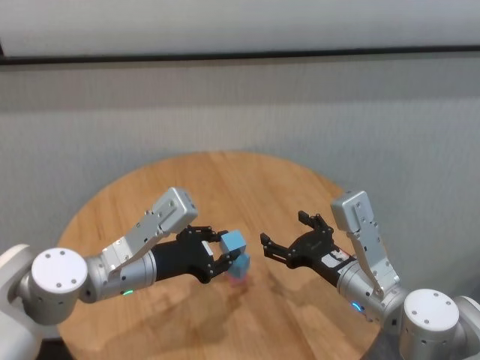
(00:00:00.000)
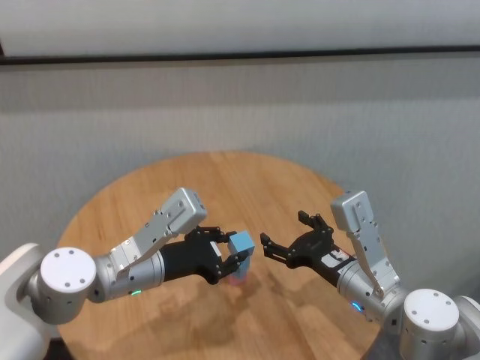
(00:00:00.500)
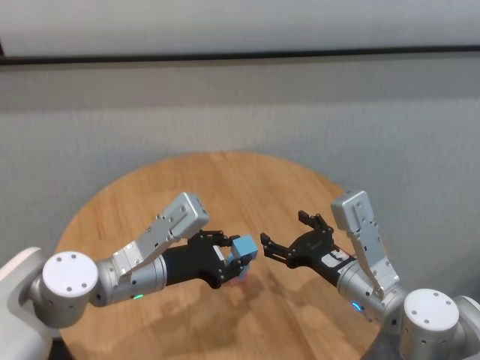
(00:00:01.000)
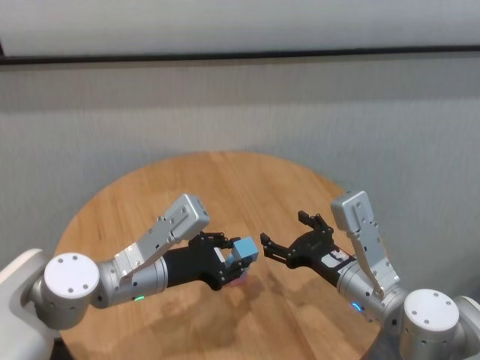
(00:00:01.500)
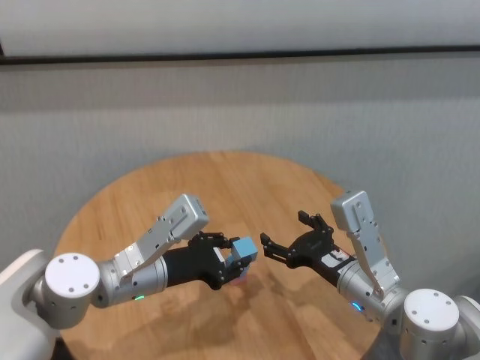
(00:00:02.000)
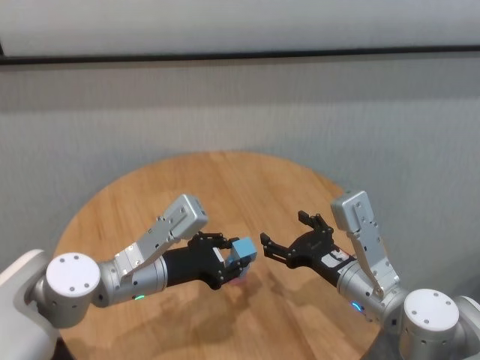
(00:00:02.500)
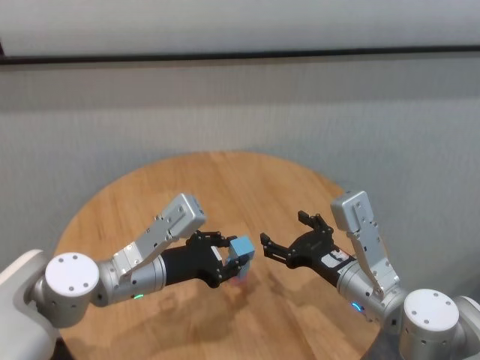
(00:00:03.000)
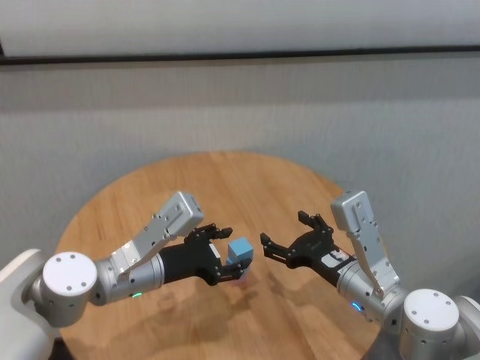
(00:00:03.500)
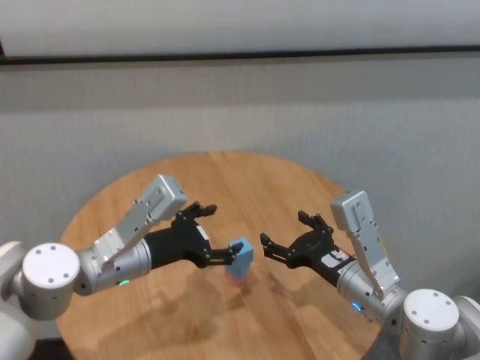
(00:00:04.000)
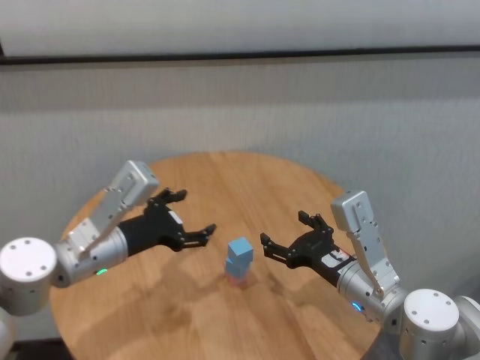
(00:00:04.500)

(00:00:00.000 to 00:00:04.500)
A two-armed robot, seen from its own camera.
Task of the whole recording: stack building blocks on the table.
Step, 00:00:00.000 - 00:00:03.500: Place the blue building block on the blue building blocks with left gripper.

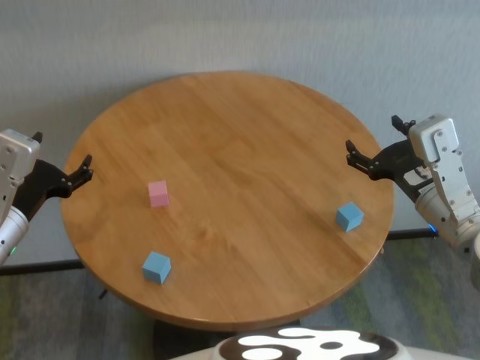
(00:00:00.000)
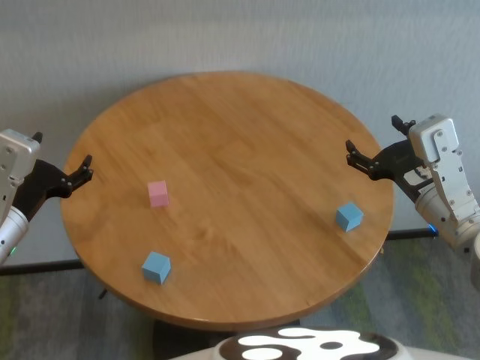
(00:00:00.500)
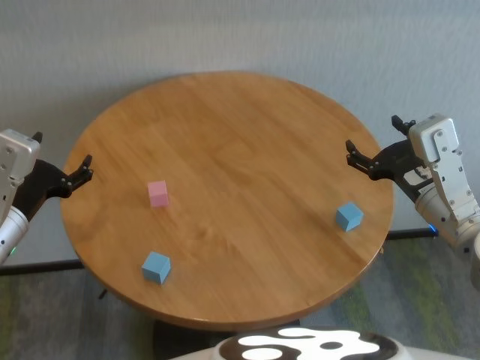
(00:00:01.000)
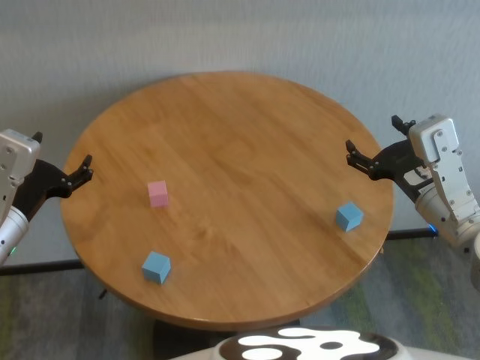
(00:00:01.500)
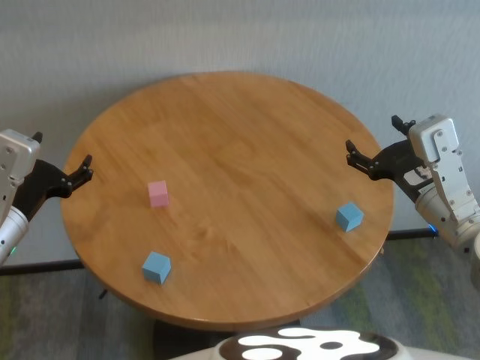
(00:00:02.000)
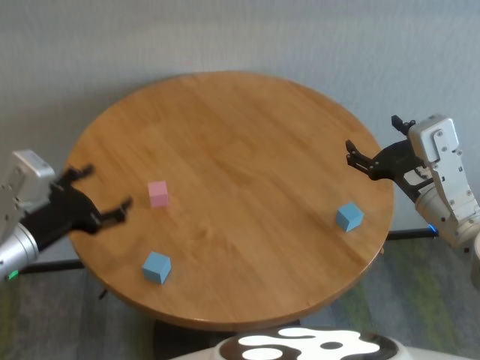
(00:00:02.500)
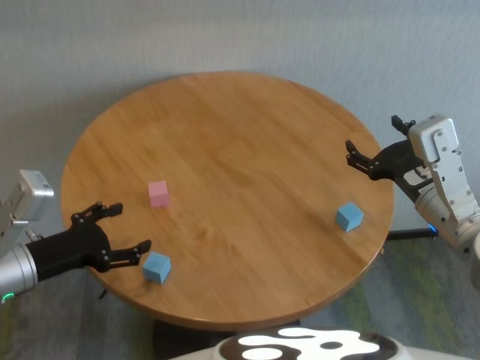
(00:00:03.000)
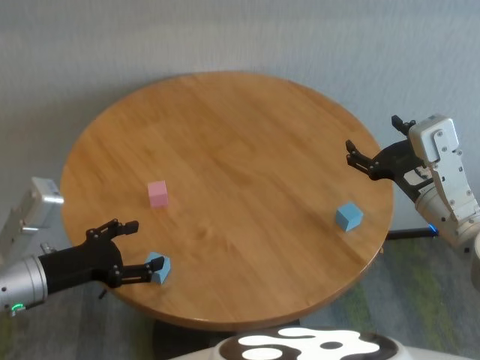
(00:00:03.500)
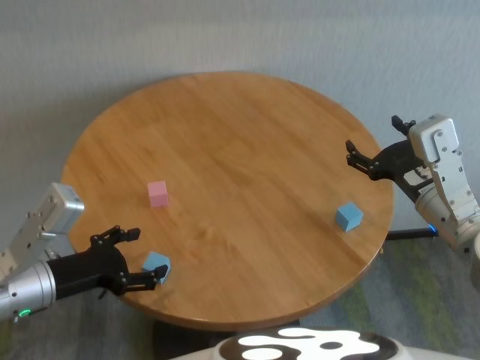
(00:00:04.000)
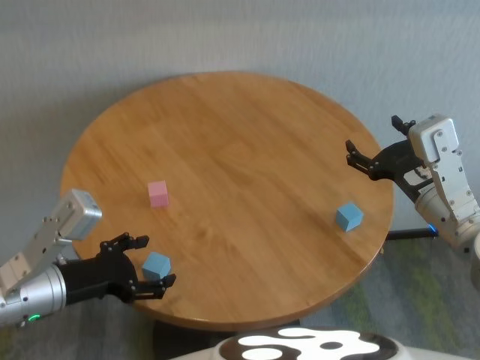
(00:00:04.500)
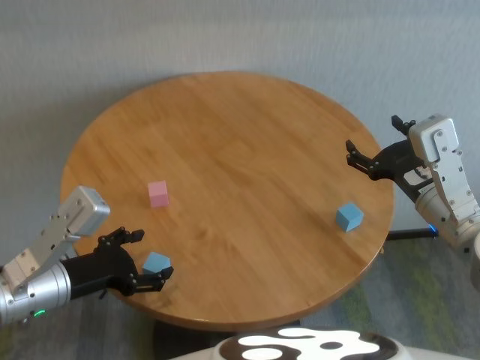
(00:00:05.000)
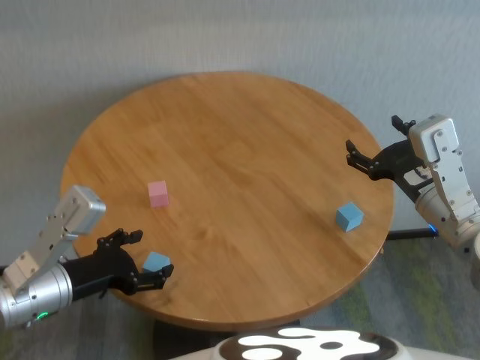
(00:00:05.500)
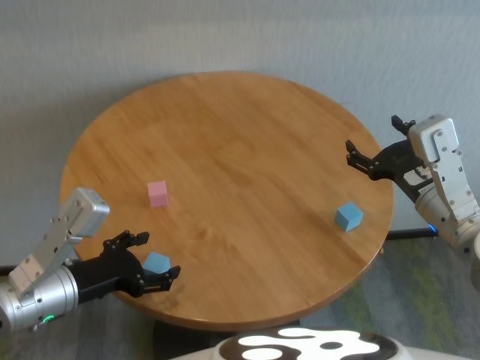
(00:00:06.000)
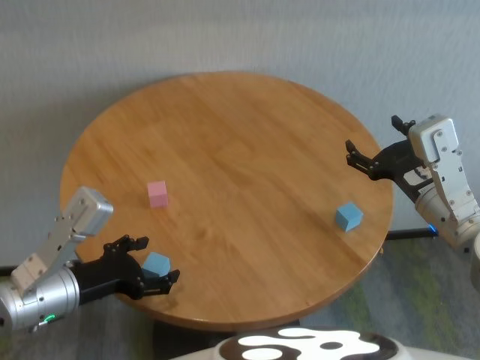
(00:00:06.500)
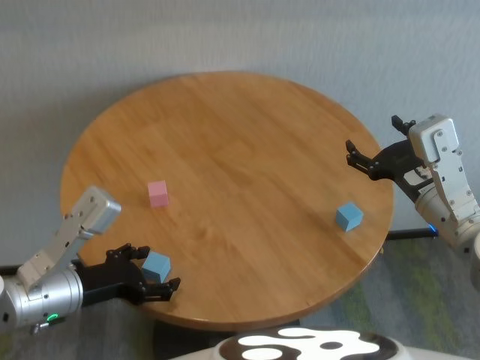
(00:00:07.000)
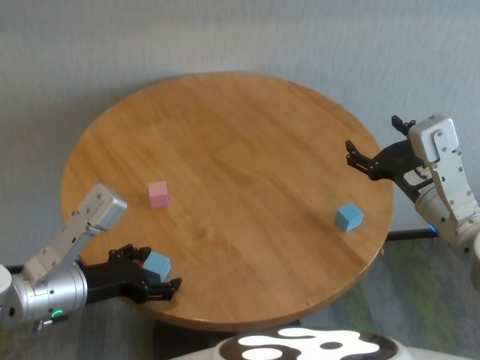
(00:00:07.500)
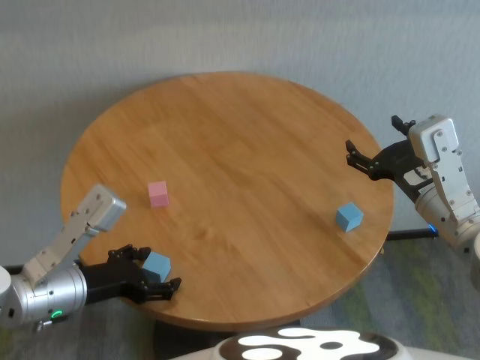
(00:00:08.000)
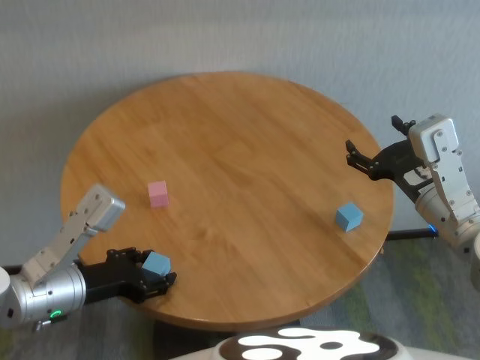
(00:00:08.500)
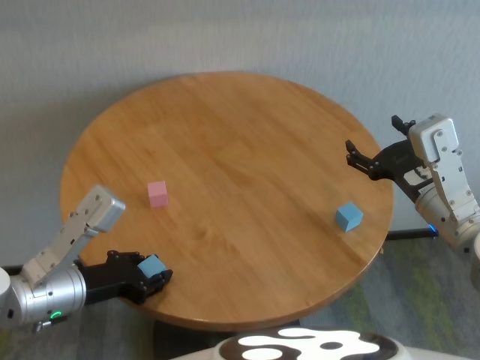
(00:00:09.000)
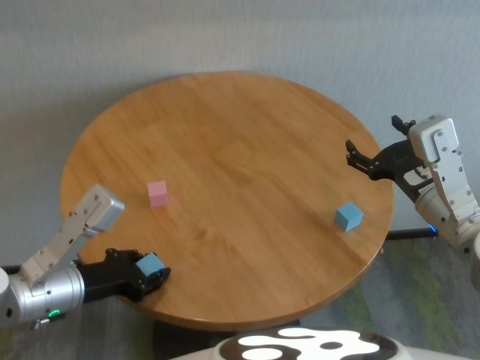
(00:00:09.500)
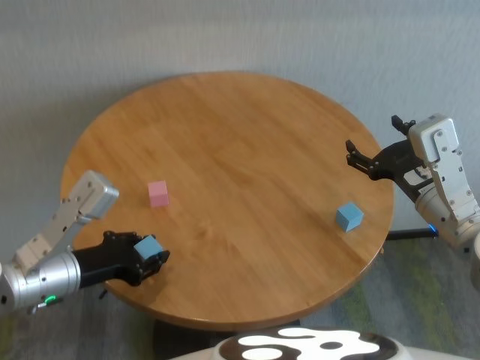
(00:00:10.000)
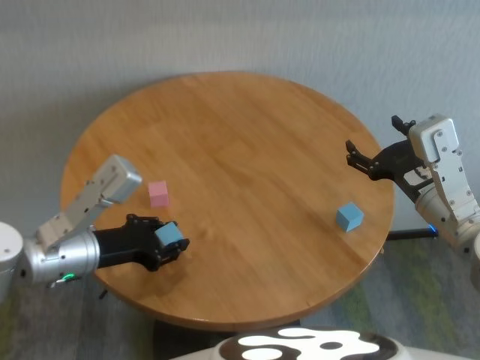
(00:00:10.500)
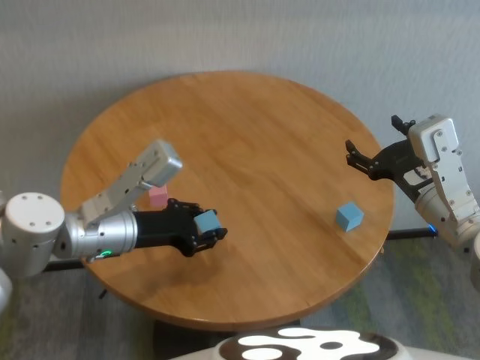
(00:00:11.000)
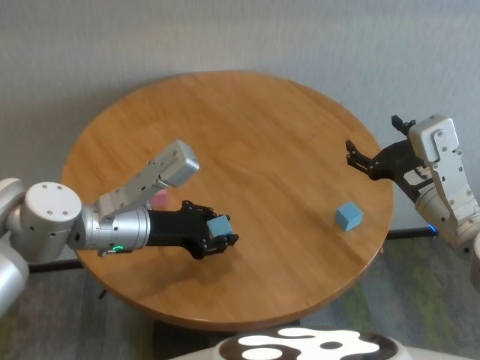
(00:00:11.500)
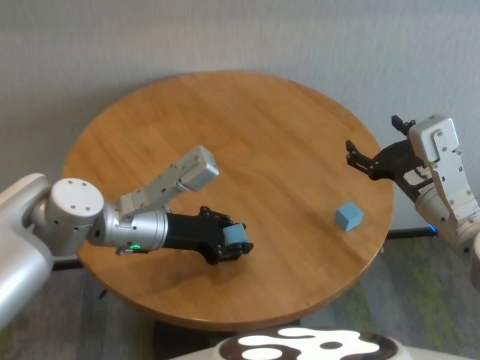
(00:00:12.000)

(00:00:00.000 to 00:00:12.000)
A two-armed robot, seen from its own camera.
Task of the whole recording: stack building blocks on the table.
Step, 00:00:00.000 - 00:00:08.500: Grasp the blue building block with left gripper.

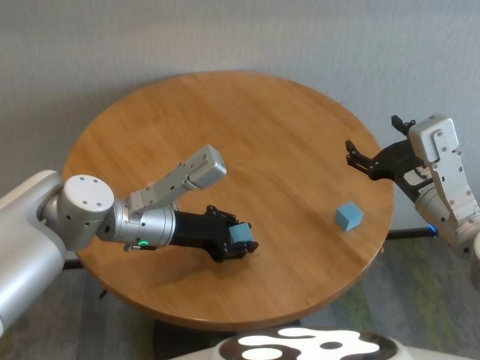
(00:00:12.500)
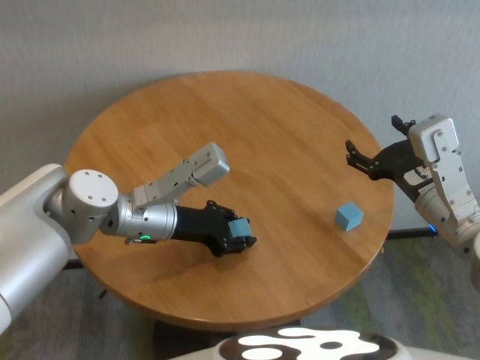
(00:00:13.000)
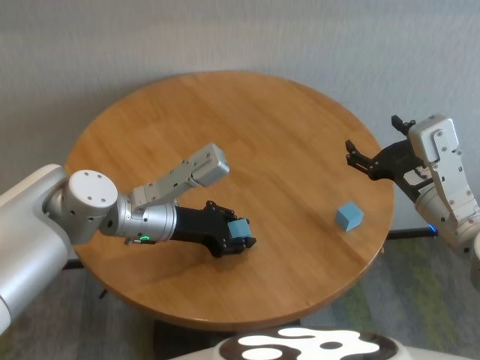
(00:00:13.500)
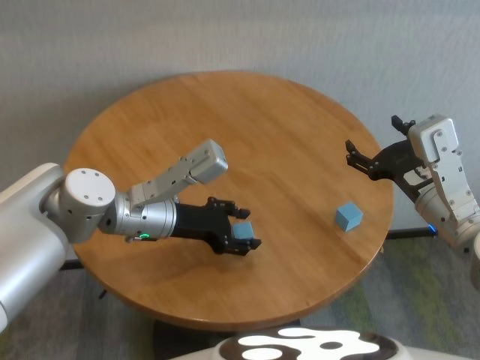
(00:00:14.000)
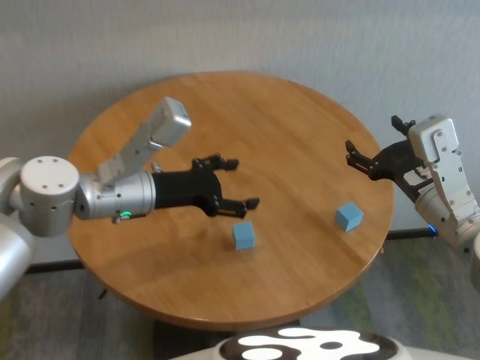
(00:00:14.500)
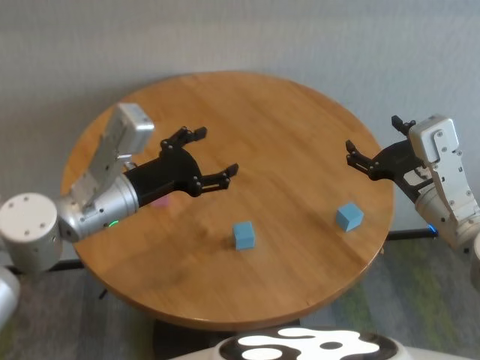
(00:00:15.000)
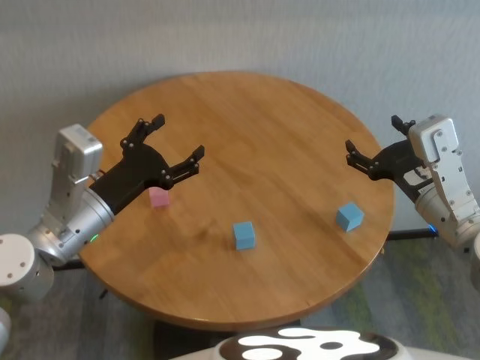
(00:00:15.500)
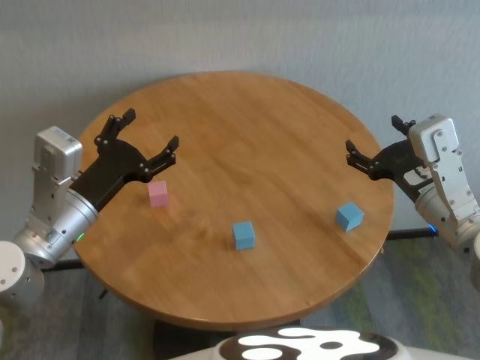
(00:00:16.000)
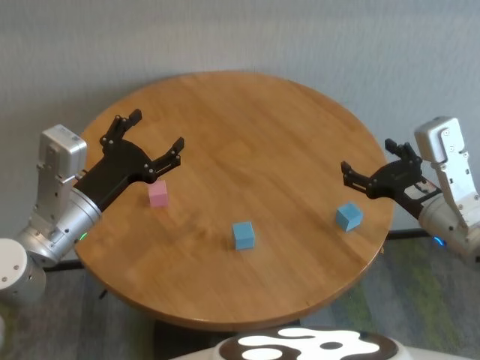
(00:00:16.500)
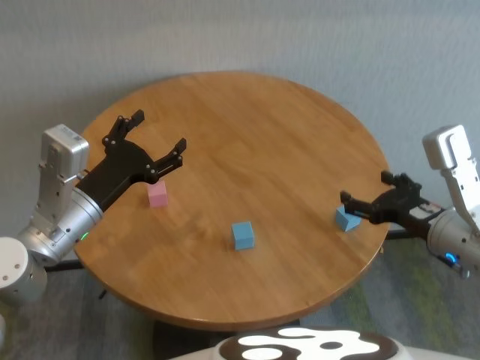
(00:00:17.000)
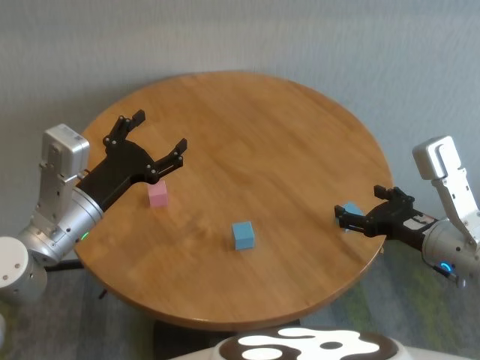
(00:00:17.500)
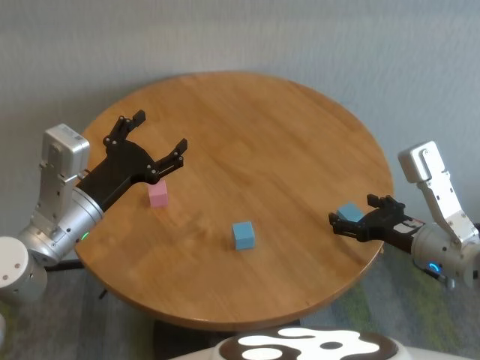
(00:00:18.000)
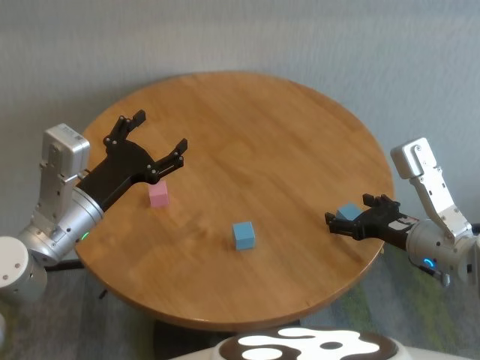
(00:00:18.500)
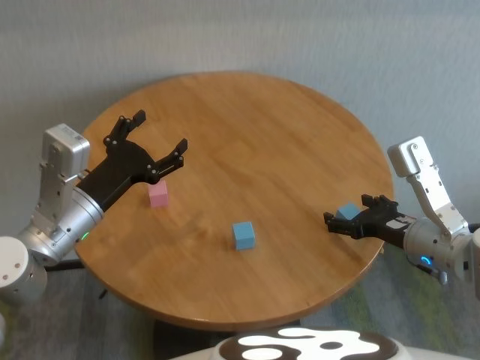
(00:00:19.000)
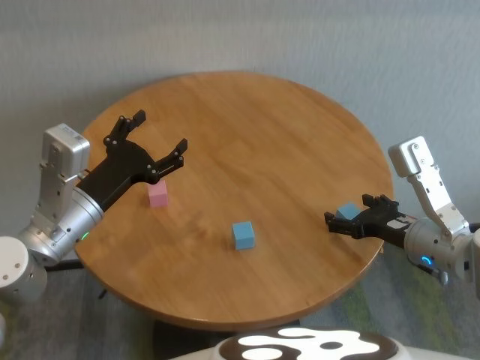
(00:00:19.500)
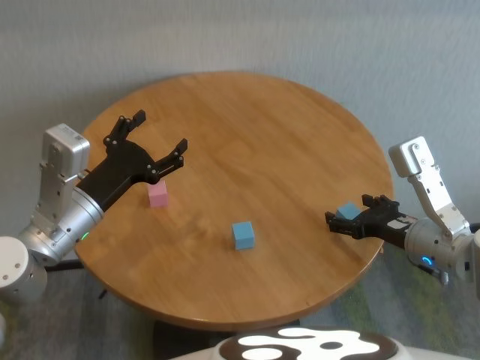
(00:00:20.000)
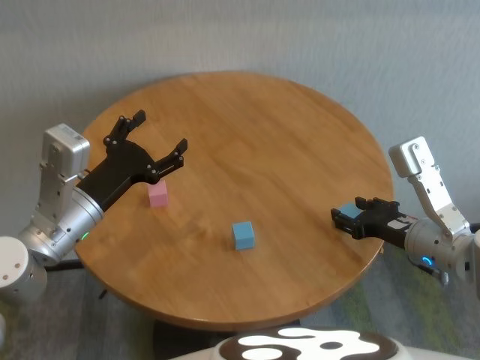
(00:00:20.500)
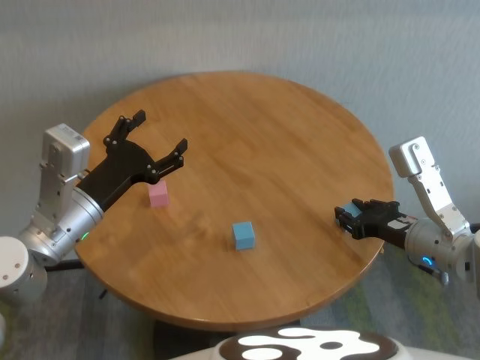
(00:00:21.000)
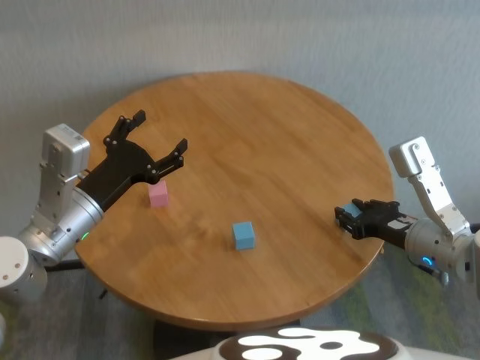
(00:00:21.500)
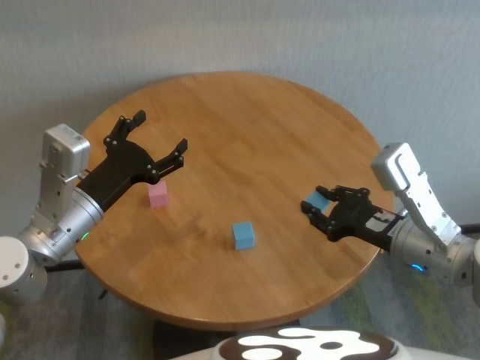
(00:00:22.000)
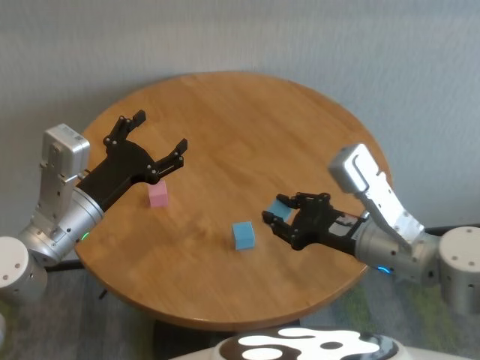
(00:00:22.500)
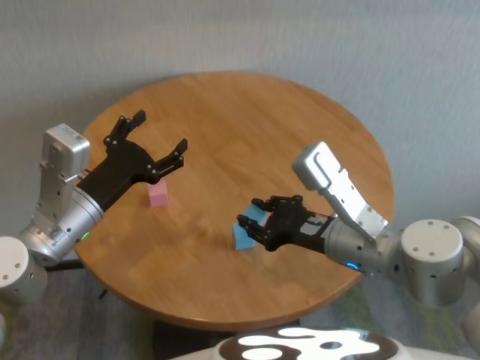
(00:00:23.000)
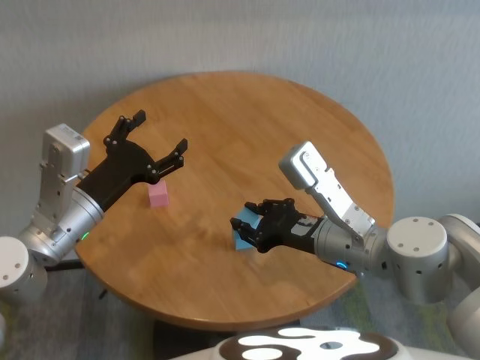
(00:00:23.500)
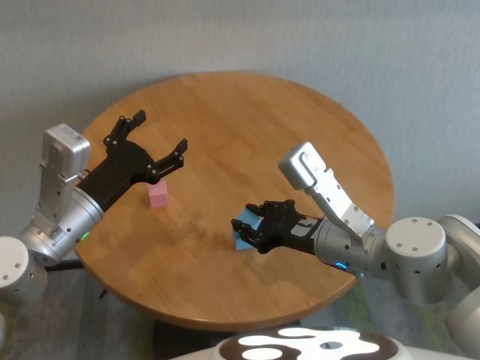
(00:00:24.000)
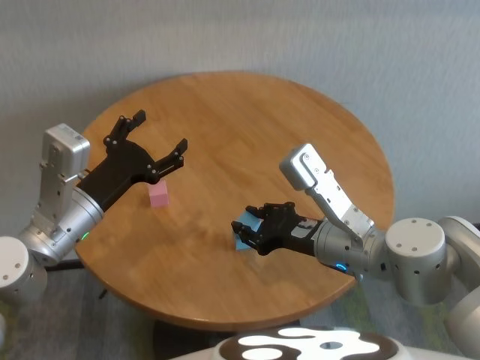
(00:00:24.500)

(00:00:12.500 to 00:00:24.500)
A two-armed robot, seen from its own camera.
Task of the whole recording: stack building blocks on the table.
Step, 00:00:14.000 - 00:00:20.500: Grasp the blue building block with right gripper.
